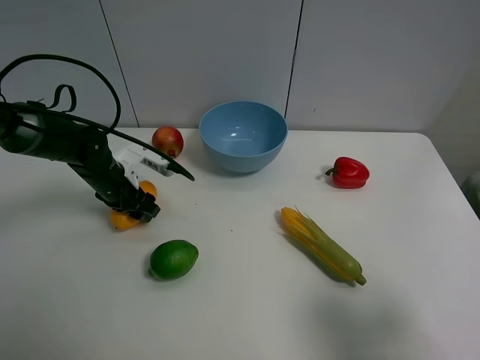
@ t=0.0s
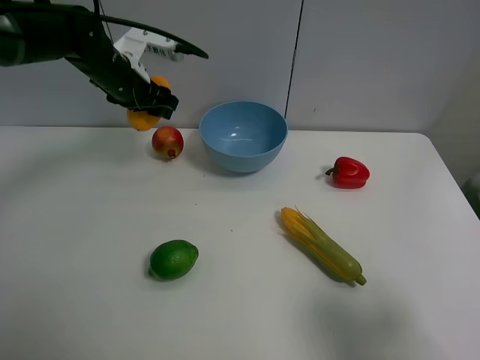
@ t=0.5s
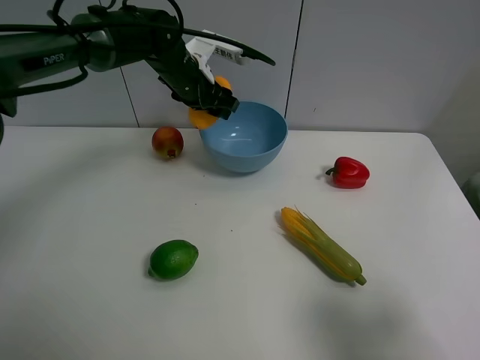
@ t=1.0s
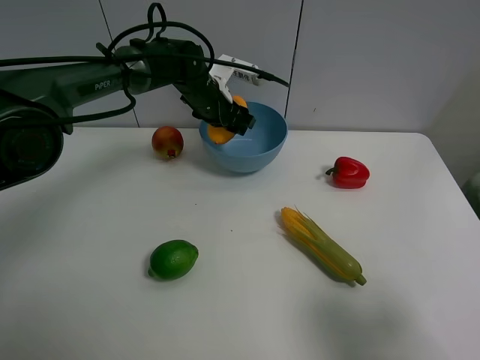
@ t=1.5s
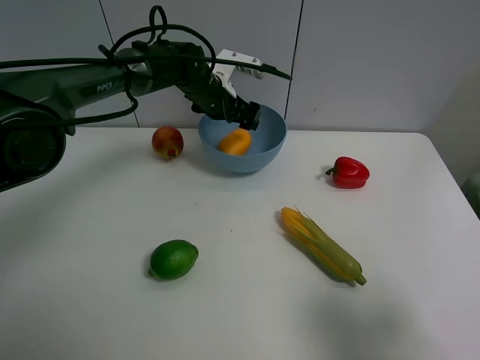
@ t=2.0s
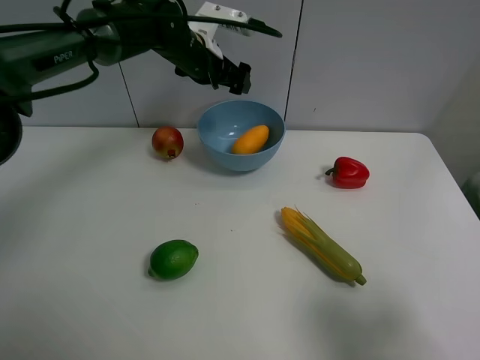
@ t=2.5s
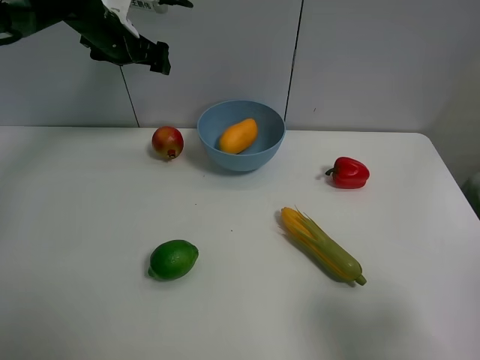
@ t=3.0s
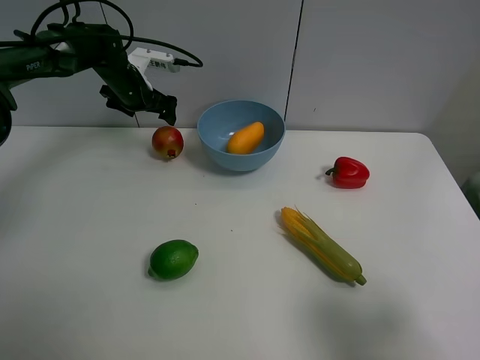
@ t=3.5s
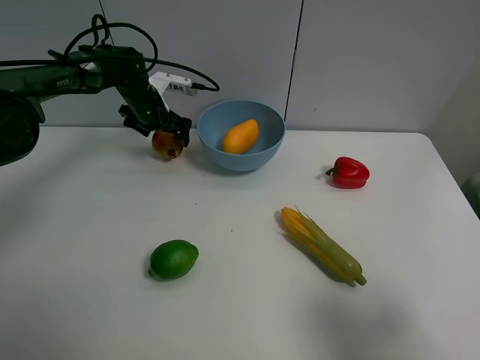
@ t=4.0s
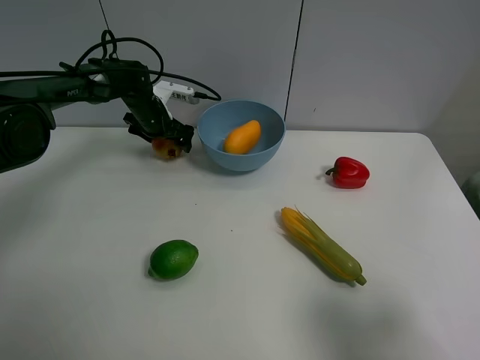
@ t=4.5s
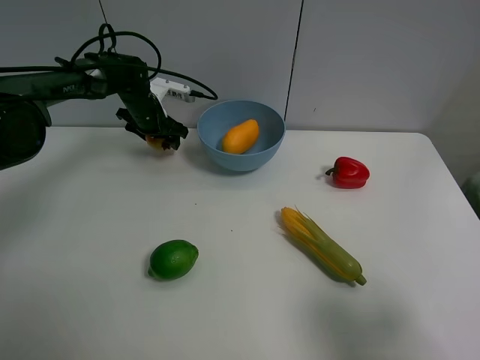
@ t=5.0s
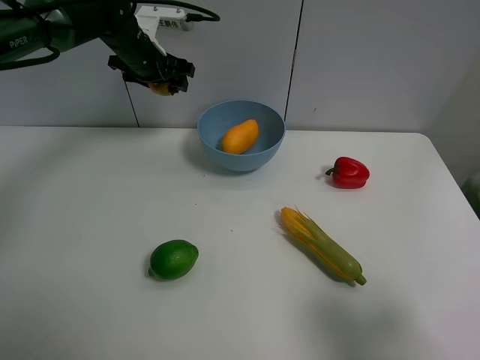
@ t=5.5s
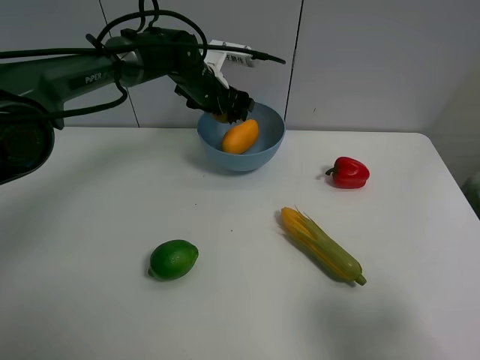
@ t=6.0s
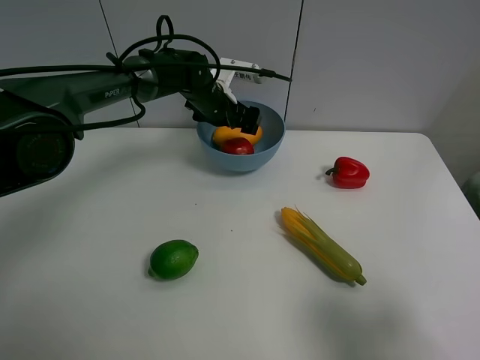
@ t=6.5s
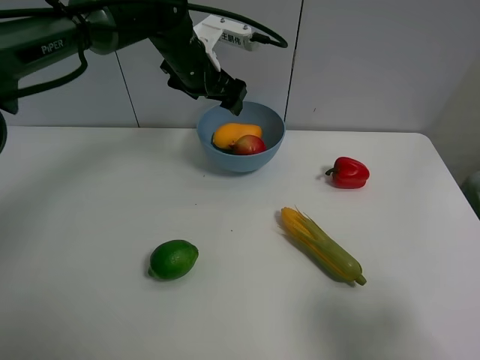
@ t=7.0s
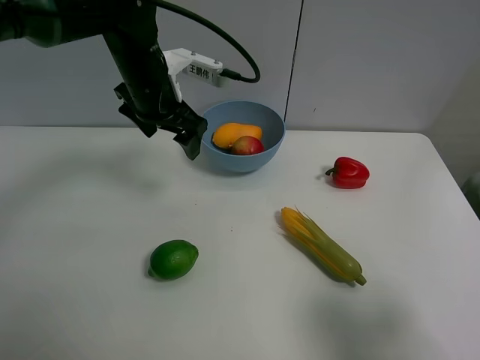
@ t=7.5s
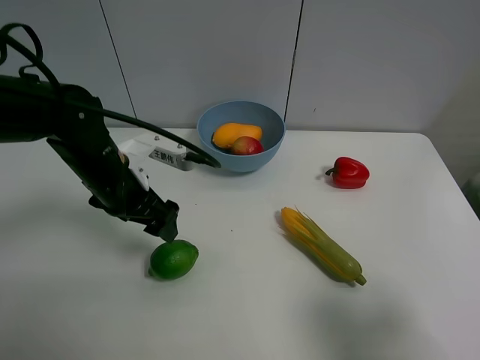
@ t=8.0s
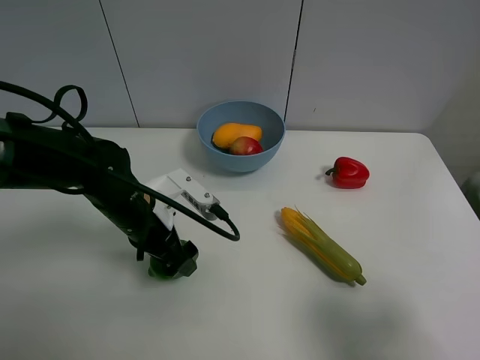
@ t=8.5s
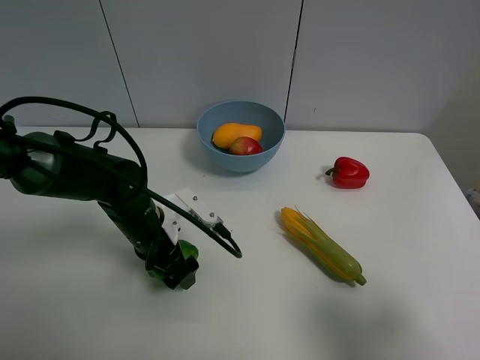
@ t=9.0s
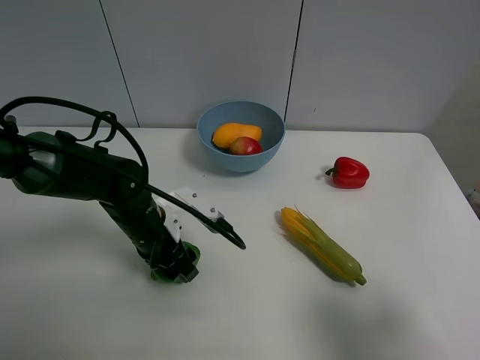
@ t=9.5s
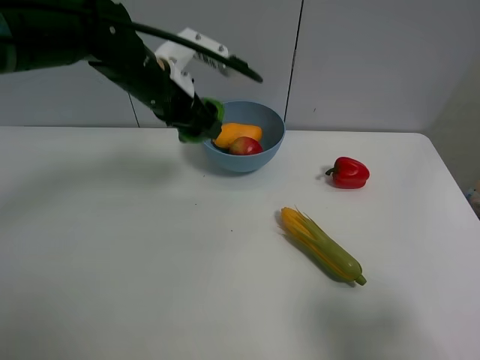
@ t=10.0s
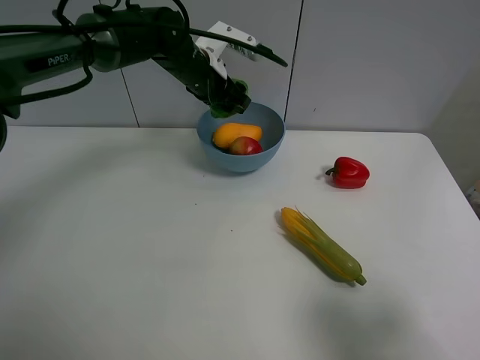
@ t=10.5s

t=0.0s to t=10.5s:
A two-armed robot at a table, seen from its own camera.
Task of the whole recording: Put the three fruits on the table into a bowl.
Step, t=0.0s to t=2.0s: Place the mango in the blue bowl with left gripper.
Step, t=2.5s to t=4.5s: Grasp the pomegranate with left gripper.
Step, t=5.0s to t=6.5s: Place the pomegranate in the blue bowl with left gripper.
Step, t=7.0s to t=9.0s: Grasp the green lemon with left gripper.
t=0.0s to t=2.0s: The left gripper shifts roughly 20 cm to the right, forward and upward, and opens.
t=2.0s to t=4.0s: The left gripper goes some 15 cm to the left.
t=4.0s to t=6.5s: The left gripper is displaced to the right by some 15 cm, and closes, then opens again.
t=6.5s to t=8.5s: The left gripper goes some 25 cm backward.
t=8.5s to t=10.5s: The left gripper shifts approximately 20 cm forward, and closes.

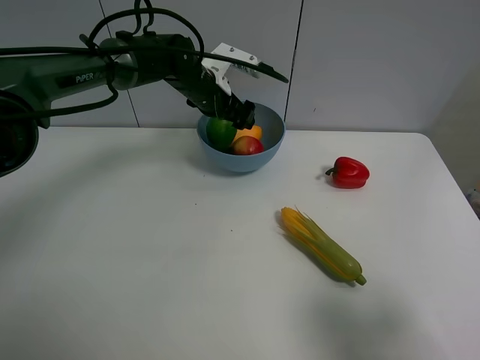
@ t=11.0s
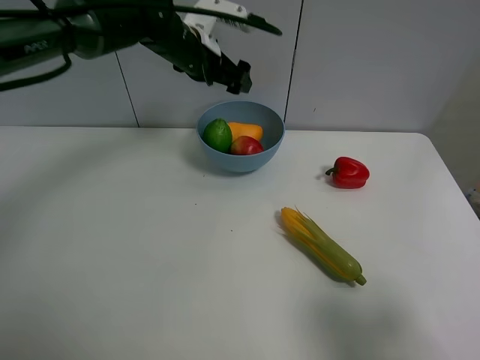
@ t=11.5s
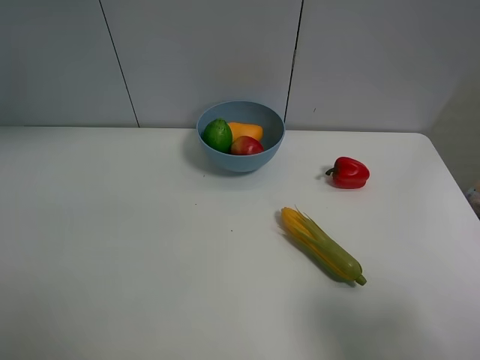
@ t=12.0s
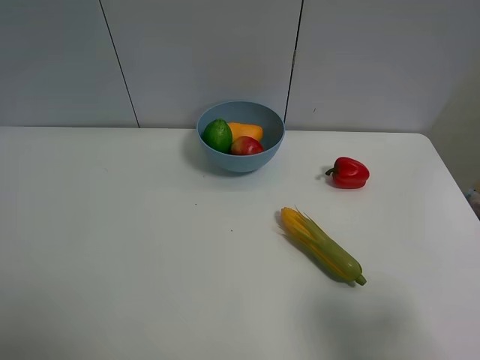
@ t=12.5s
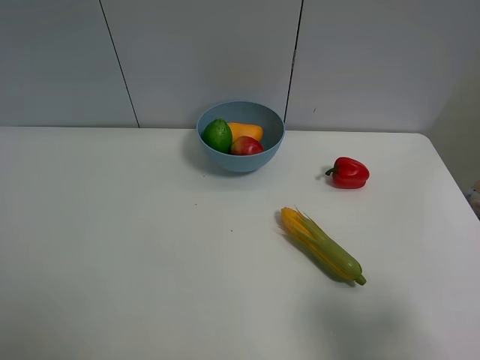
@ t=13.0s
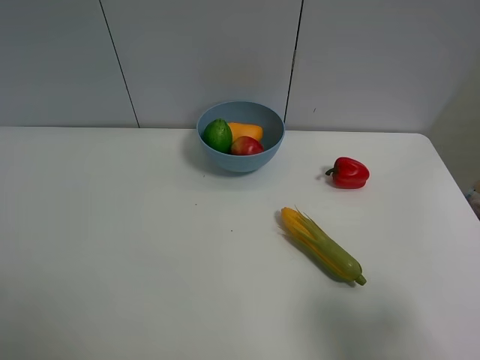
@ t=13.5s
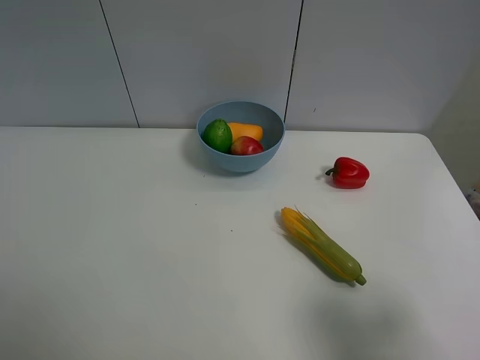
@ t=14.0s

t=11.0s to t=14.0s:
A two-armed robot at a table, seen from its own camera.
Task of the whole recording: Put the three fruits on the table into a bowl.
t=11.0s to t=12.5s: The left gripper moves backward, to the left and upward, some 50 cm.

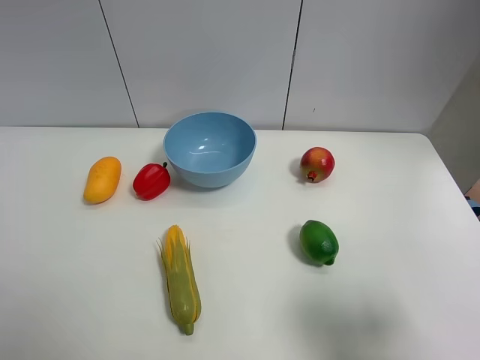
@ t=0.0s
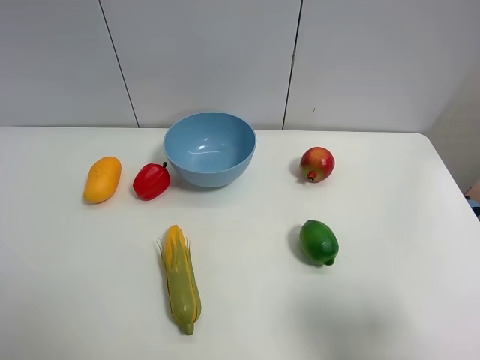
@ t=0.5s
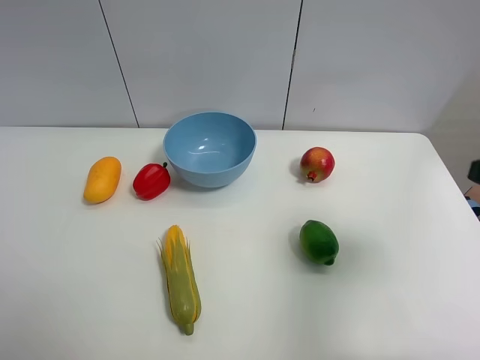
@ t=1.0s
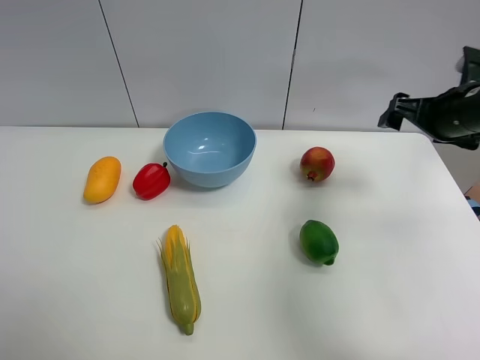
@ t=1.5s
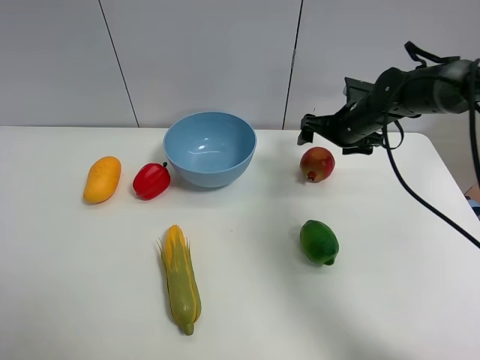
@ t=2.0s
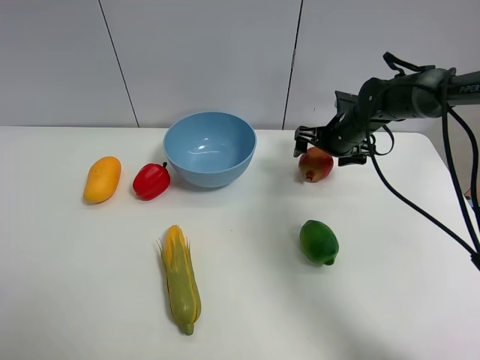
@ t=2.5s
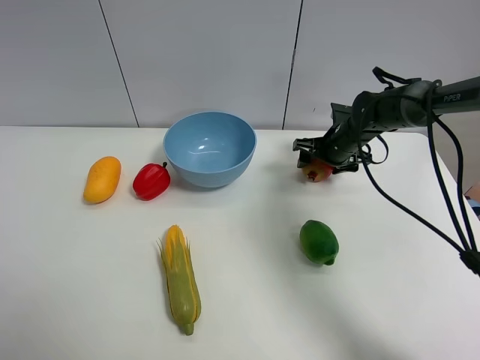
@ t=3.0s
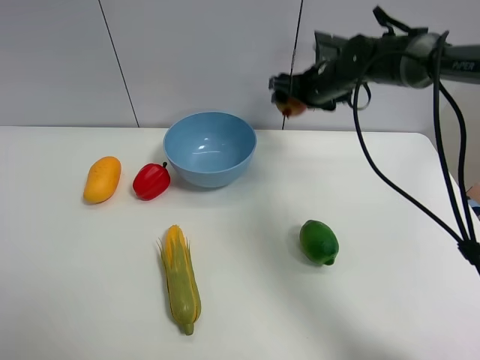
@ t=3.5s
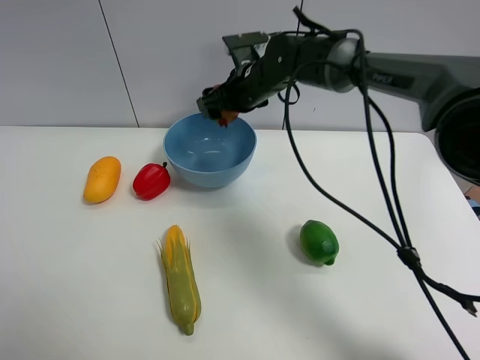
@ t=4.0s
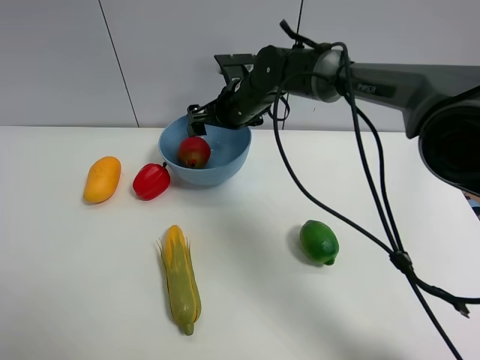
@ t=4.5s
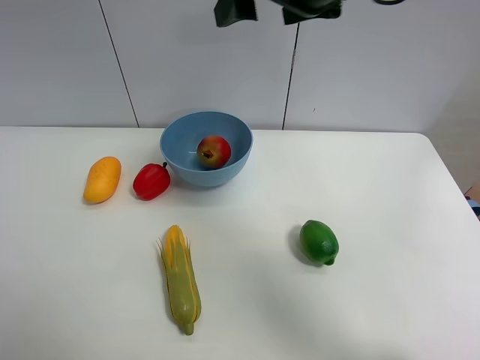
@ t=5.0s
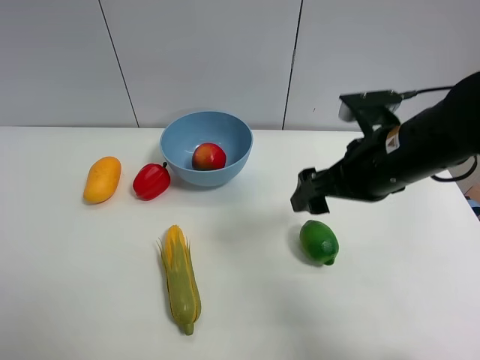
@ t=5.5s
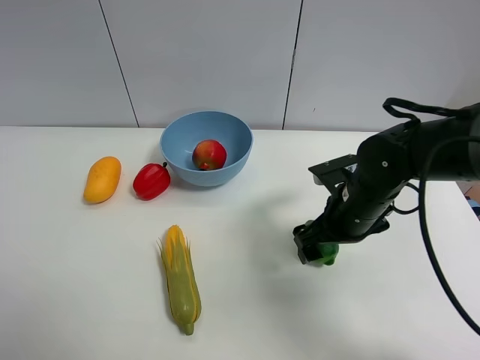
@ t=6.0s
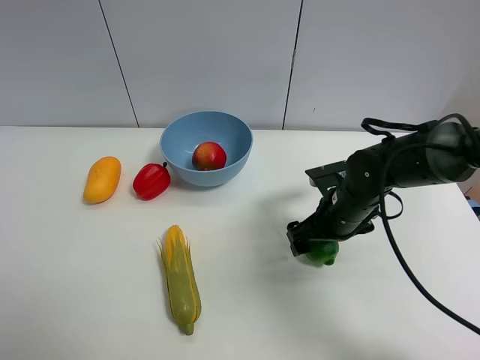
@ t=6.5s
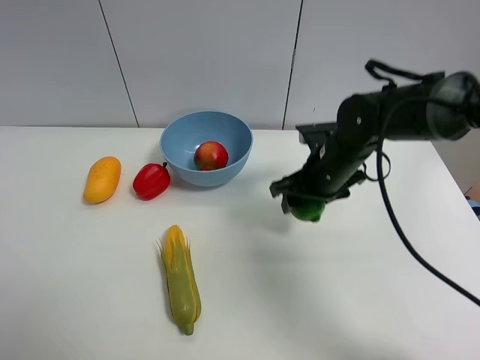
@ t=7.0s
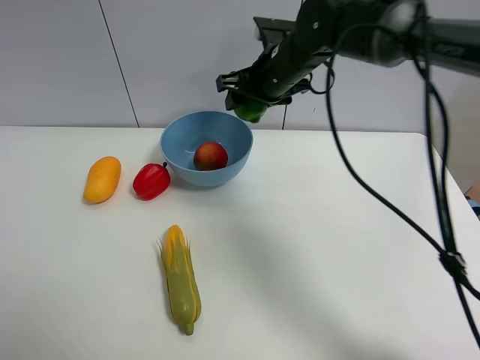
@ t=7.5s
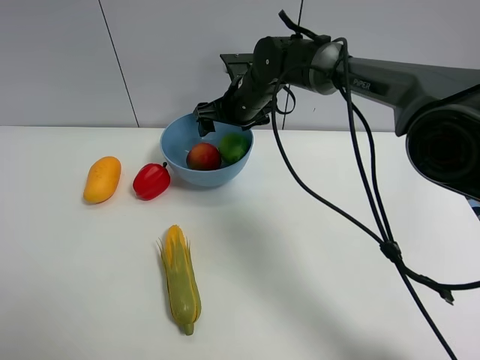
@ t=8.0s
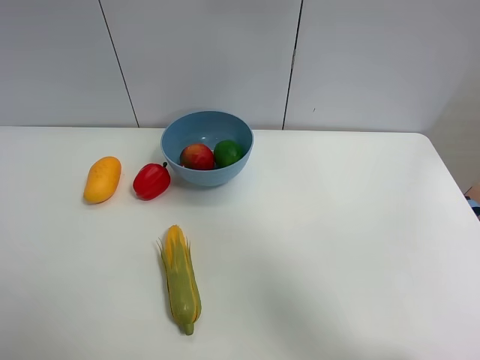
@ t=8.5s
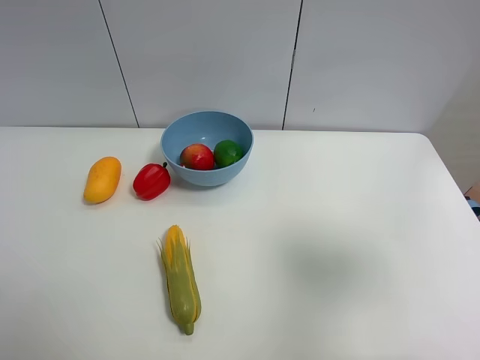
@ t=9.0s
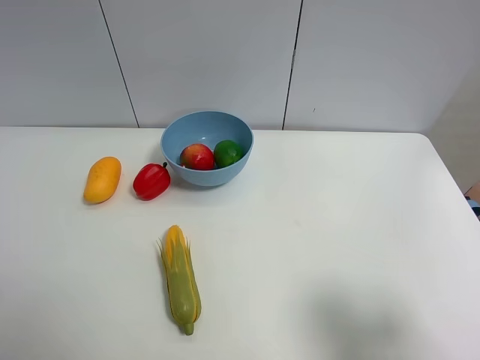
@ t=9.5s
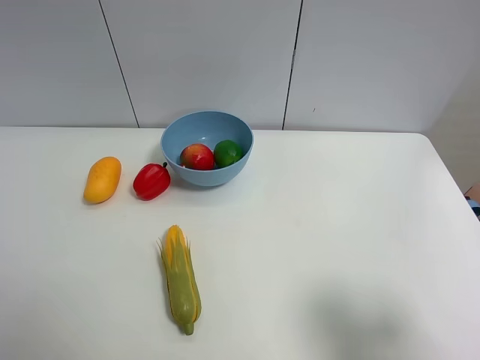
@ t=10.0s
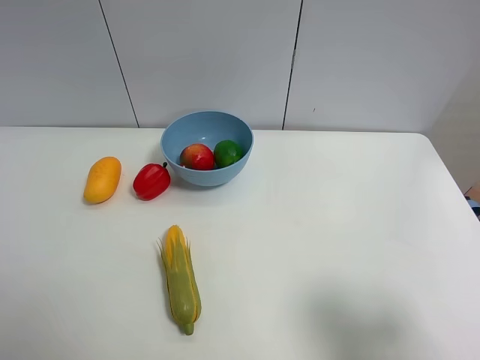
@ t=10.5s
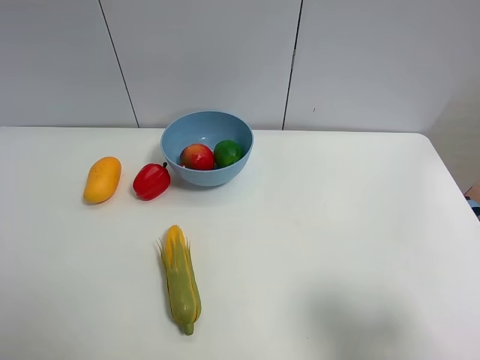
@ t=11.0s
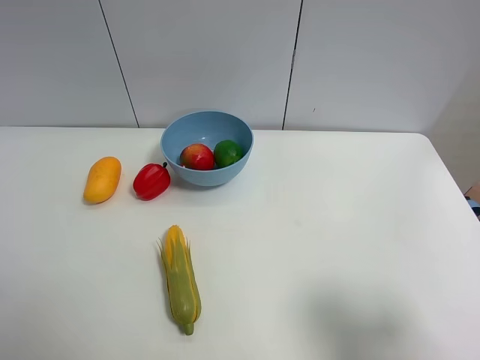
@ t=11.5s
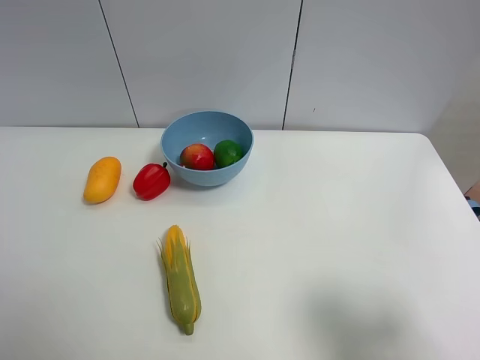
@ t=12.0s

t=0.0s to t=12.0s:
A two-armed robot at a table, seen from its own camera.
Task of the whole recording: Put the three fruits on the table into a bowl.
Step, t=0.0s to t=3.0s: Grasp the pomegranate with right gripper.
Step, t=3.5s to t=4.0s: Place the pomegranate in the blue bowl with right gripper.
Step, t=4.5s to t=6.5s: Grasp the green lemon with right gripper.
Step, t=7.0s to t=8.0s: Place the green lemon in the blue bowl with right gripper.
t=0.0s to t=2.0s: The right gripper is displaced forward by some 40 cm.
t=2.0s to t=4.0s: The right gripper shifts roughly 20 cm to the left, and closes.
t=4.0s to t=6.0s: The right gripper shifts approximately 25 cm backward and to the right, goes upward and returns, some 20 cm each way, and opens up.
t=6.0s to t=8.0s: The right gripper travels forward and to the left by some 25 cm, and closes and opens again.
t=8.0s to t=10.0s: The right gripper shifts some 50 cm backward and to the right.
t=10.0s to t=12.0s: Neither gripper changes place.
